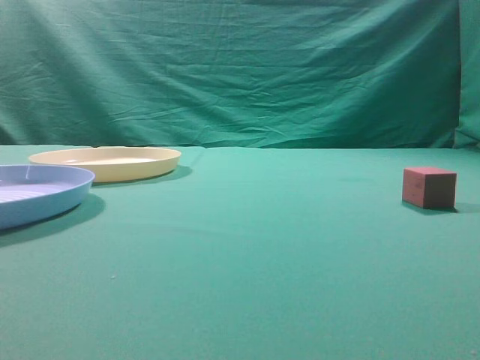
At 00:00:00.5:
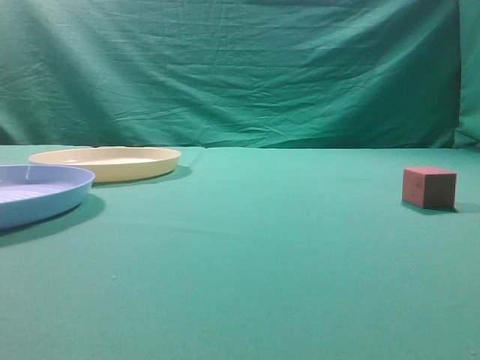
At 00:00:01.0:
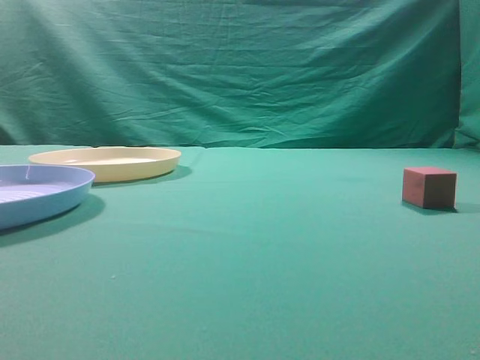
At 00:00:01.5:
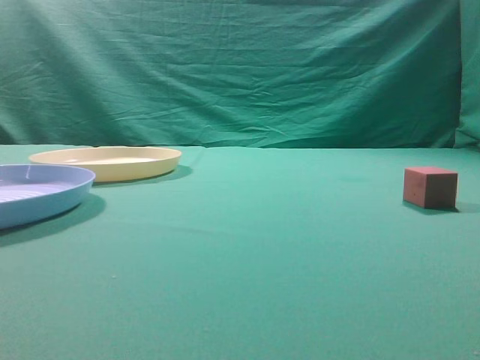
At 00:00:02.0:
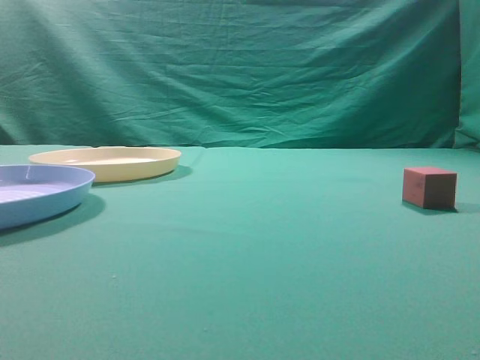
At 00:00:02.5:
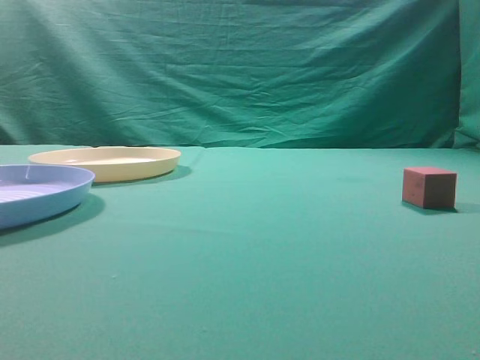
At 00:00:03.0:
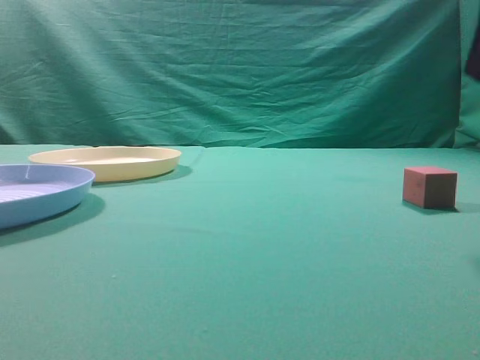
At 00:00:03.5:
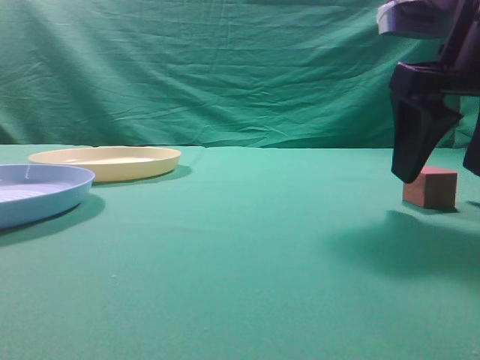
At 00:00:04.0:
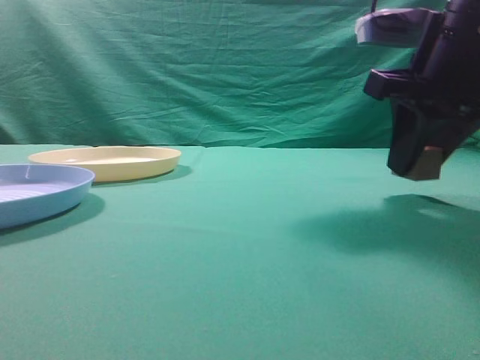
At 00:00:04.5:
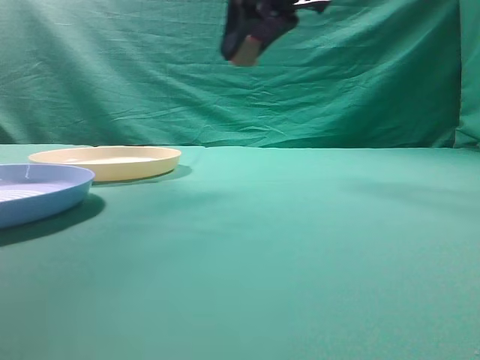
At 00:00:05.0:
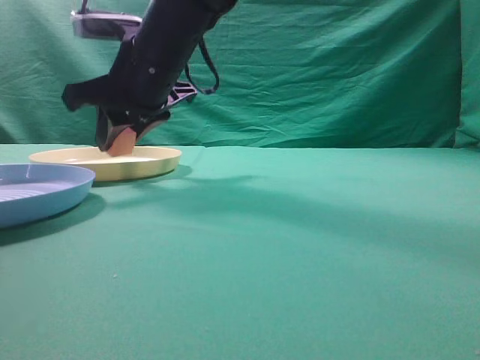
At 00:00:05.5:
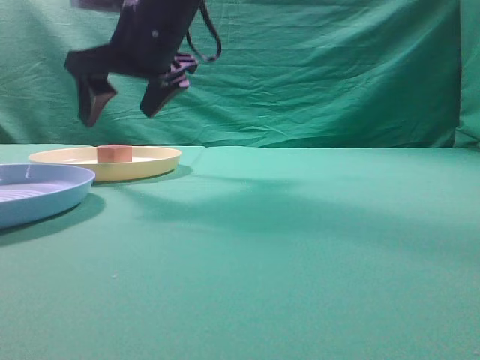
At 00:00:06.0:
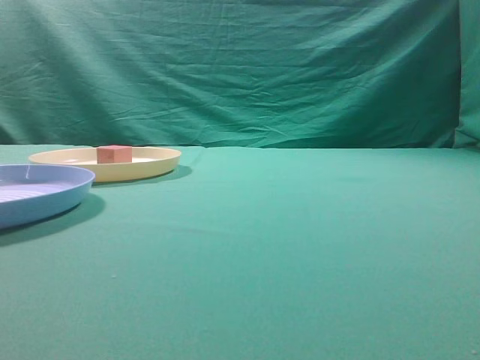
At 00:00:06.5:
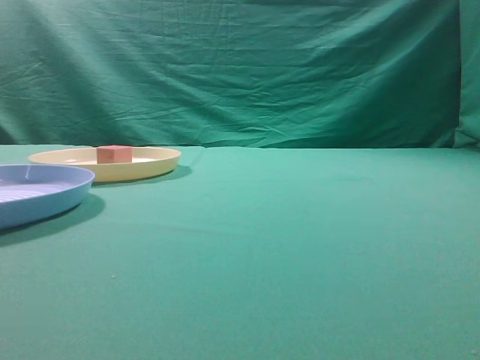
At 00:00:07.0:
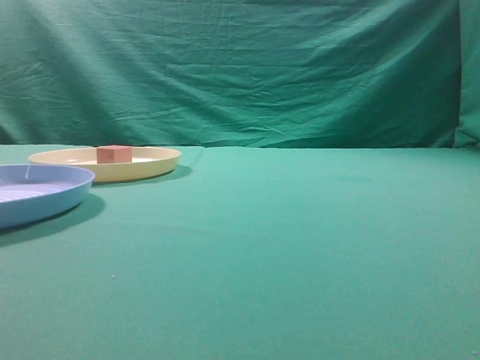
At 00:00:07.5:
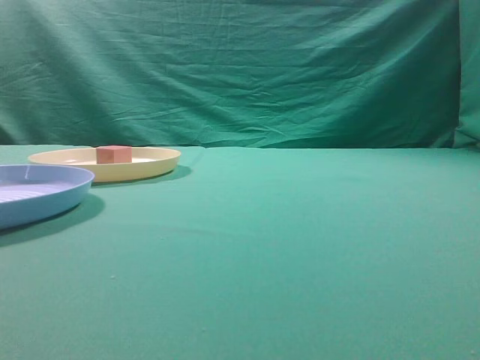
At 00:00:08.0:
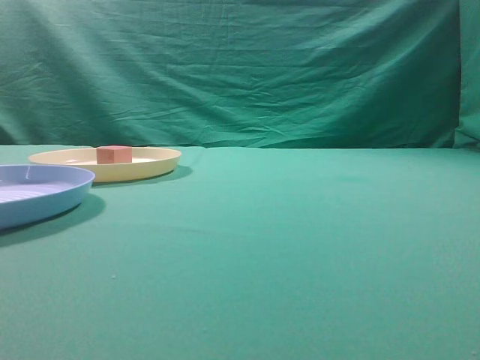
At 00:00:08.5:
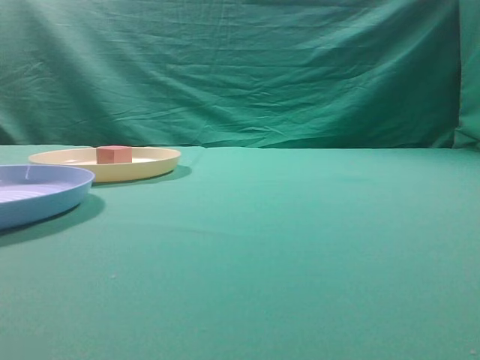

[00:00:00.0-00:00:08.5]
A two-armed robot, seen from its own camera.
Task of the whole recording: pick up the cube block from the table and put it on the plate.
Step, 00:00:00.0 to 00:00:04.0: Grasp the small cube on the table.
Step, 00:00:04.5 to 00:00:05.5: Place it into the yellow plate.
00:00:02.0 to 00:00:04.0: The right gripper travels forward and to the left by about 25 cm, and opens.
00:00:04.0 to 00:00:06.5: The right gripper is displaced upward by roughly 20 cm, reaches approximately 25 cm to the left, then returns, and closes its fingers.
